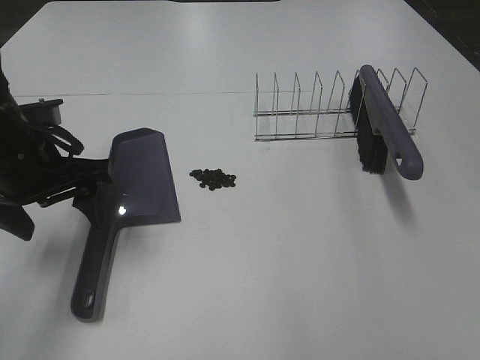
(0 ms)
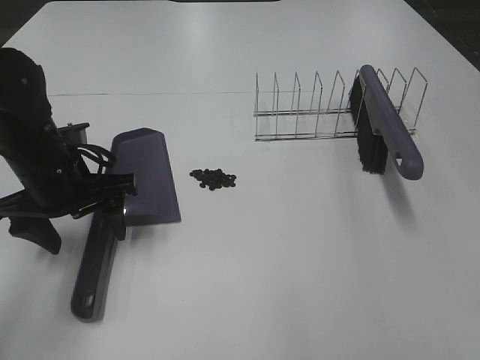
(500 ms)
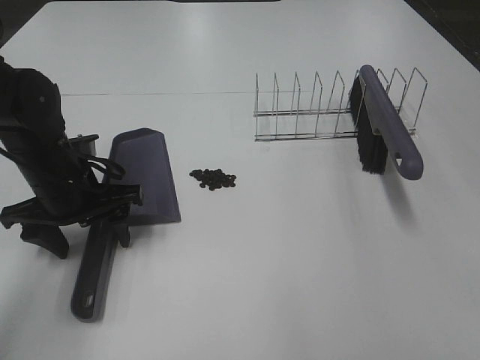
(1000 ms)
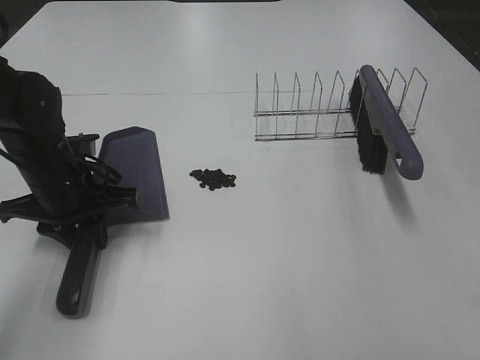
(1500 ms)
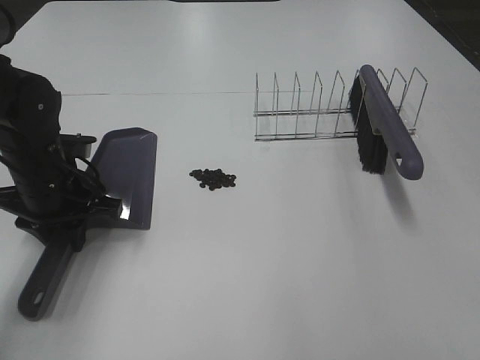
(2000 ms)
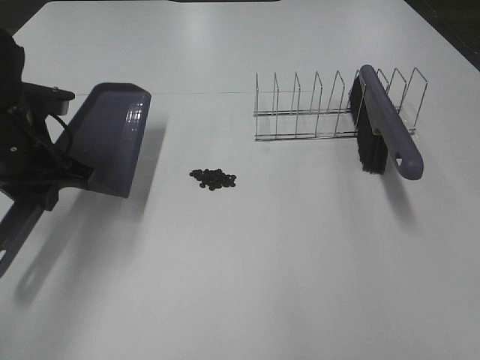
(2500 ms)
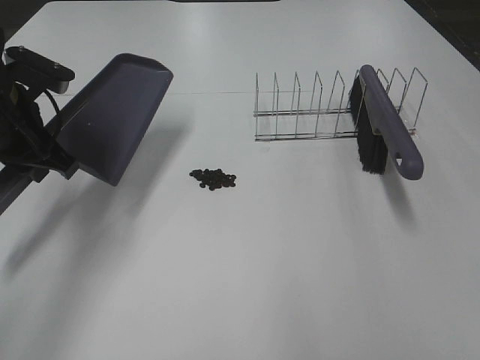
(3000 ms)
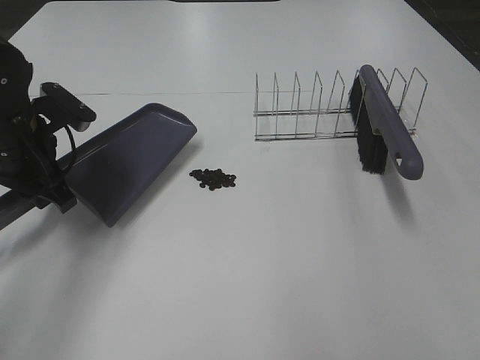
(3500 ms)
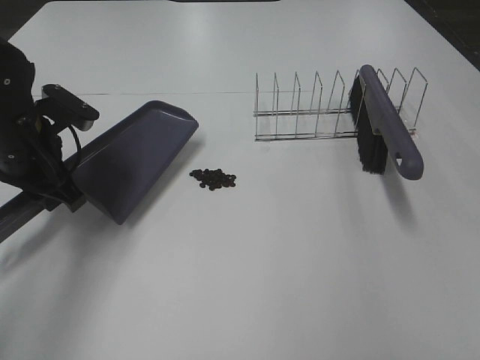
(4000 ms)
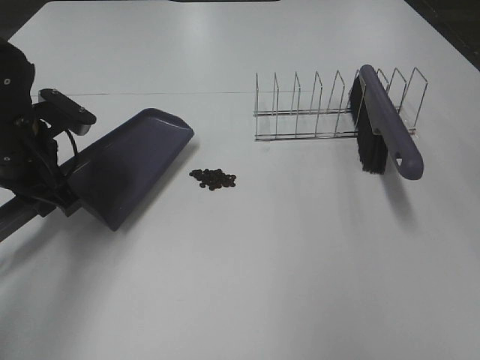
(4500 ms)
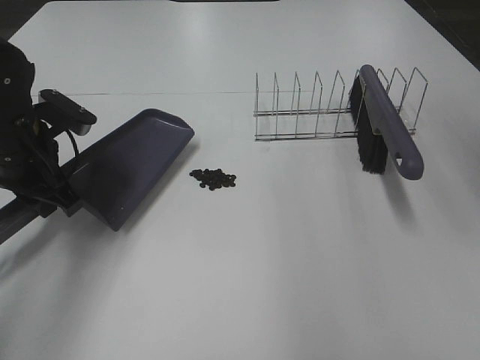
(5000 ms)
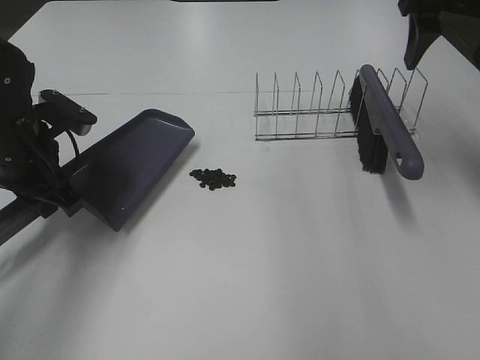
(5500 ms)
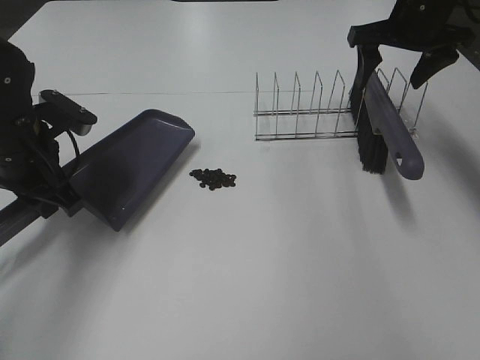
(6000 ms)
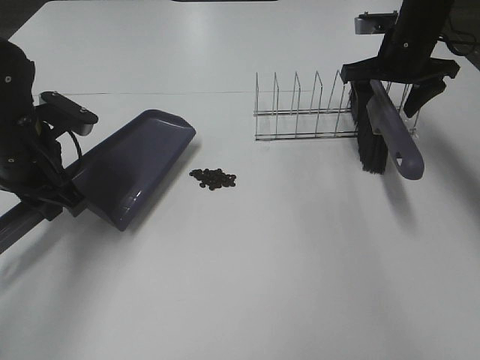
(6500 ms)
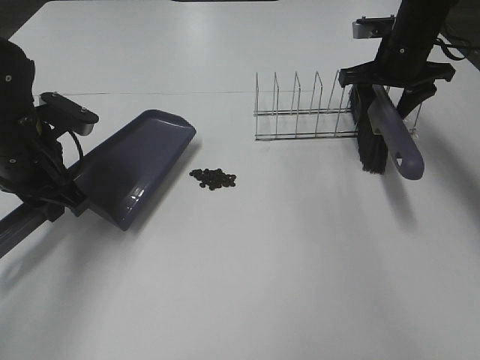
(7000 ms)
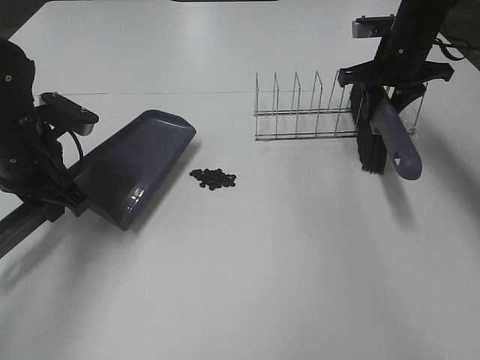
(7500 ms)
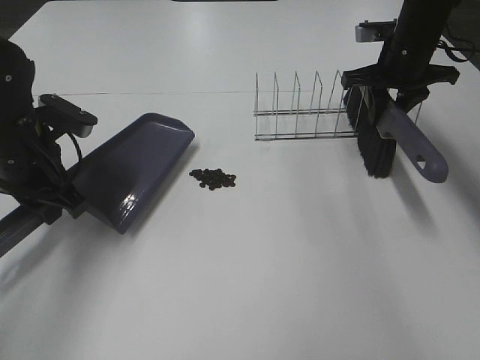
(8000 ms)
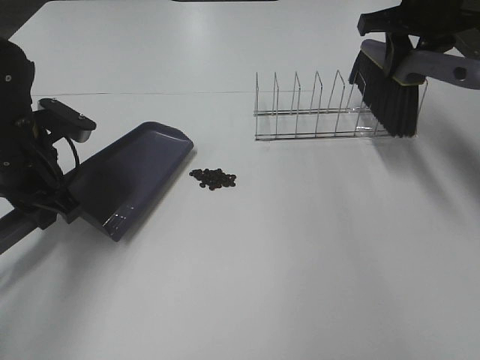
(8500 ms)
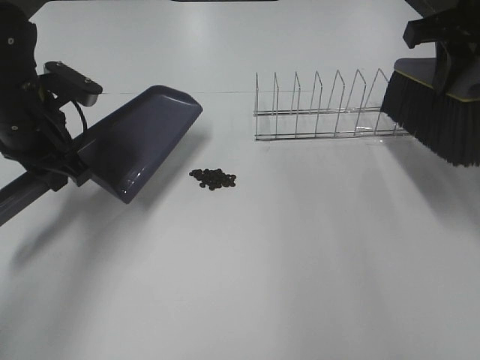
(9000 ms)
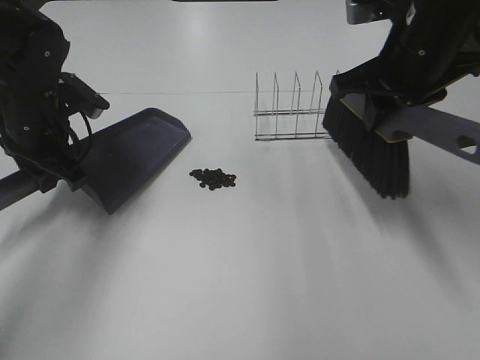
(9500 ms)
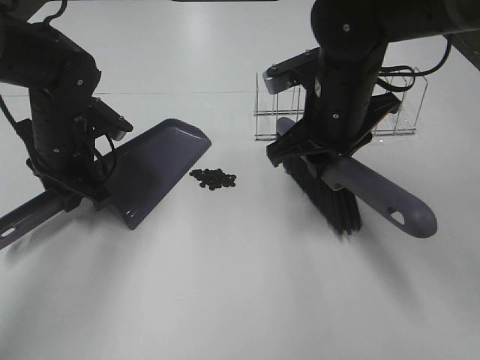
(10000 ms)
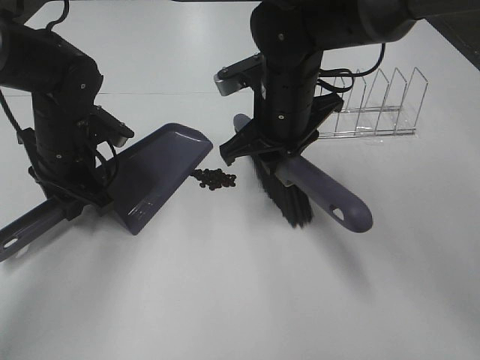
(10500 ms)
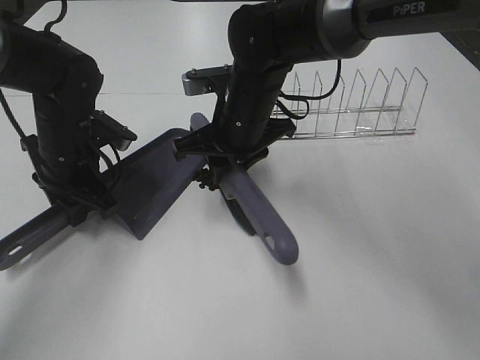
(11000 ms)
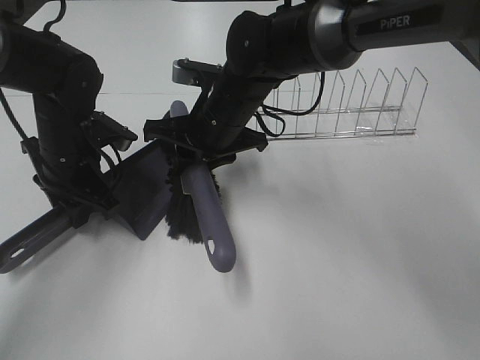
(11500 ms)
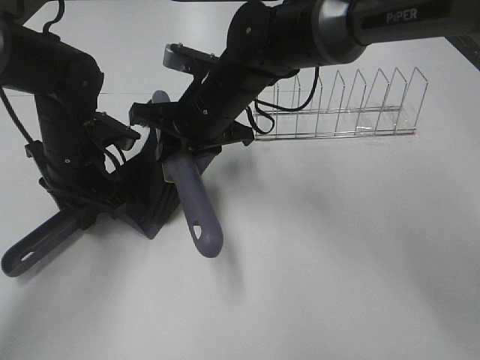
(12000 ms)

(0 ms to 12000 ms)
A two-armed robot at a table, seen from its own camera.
Task of the whole recording: Sweep Coffee Bean.
Step, 2000 ms - 9500 ms: Left hand: move the dustpan to the left side of the coffee beans.
Step, 3000 ms - 7500 ms: Right hand:grab the broom.
0 ms - 2000 ms: The left gripper is displaced downward by approximately 5 cm, and closes.
2000 ms - 4000 ms: The right gripper moves upward and forward, some 10 cm.
4000 ms - 6000 ms: The right gripper is displaced forward by approximately 40 cm.
6000 ms - 8000 ms: The right gripper is displaced downward by about 5 cm, and closes up.
8000 ms - 10000 ms: The right gripper travels backward and to the left by approximately 20 cm. The left gripper changes place by approximately 5 cm.
10000 ms - 12000 ms: The right gripper travels to the left by about 10 cm.

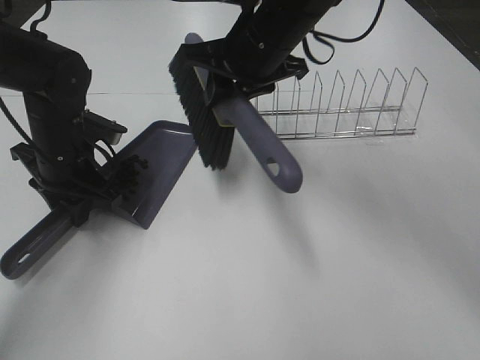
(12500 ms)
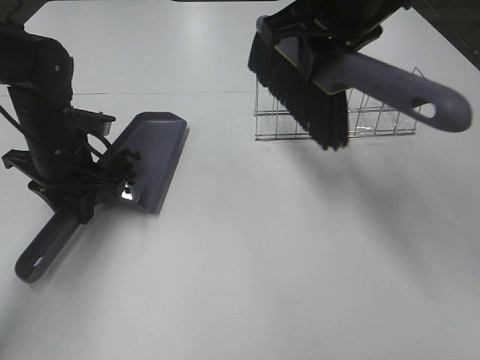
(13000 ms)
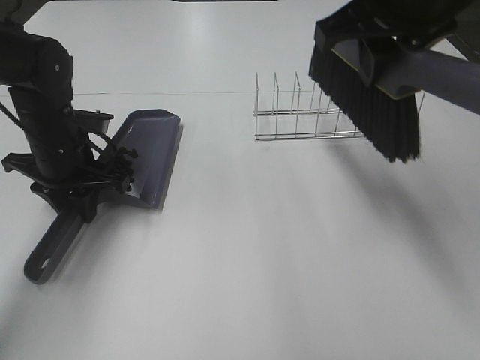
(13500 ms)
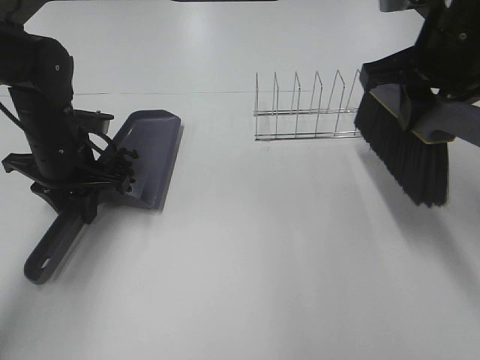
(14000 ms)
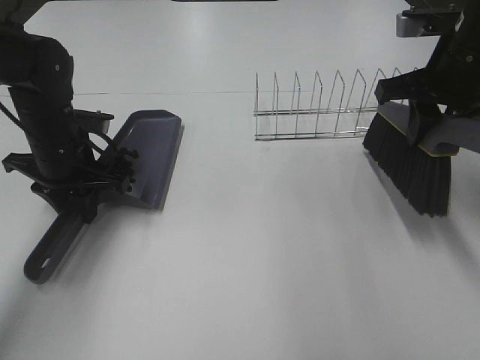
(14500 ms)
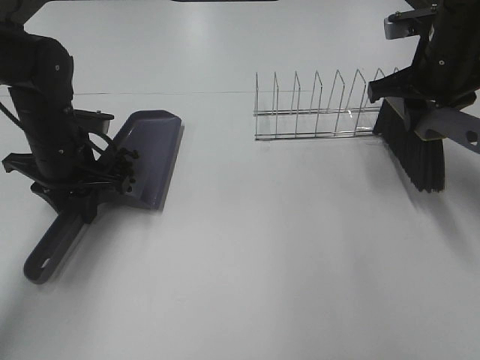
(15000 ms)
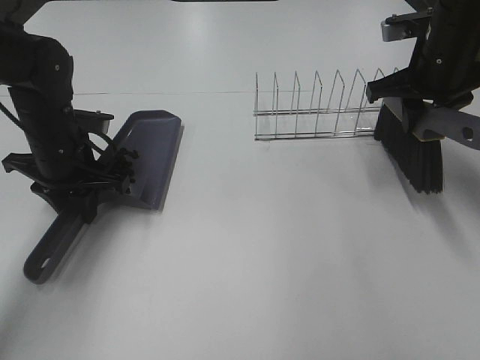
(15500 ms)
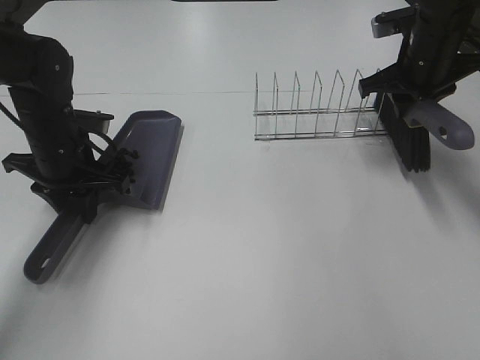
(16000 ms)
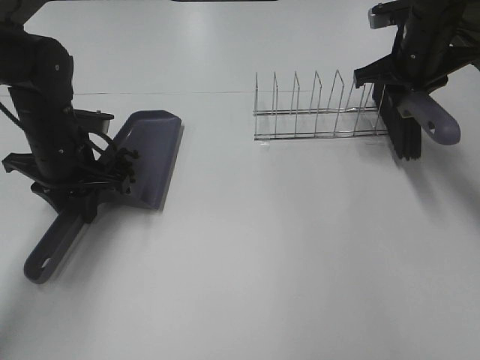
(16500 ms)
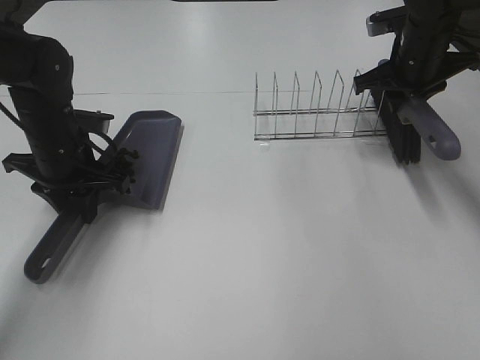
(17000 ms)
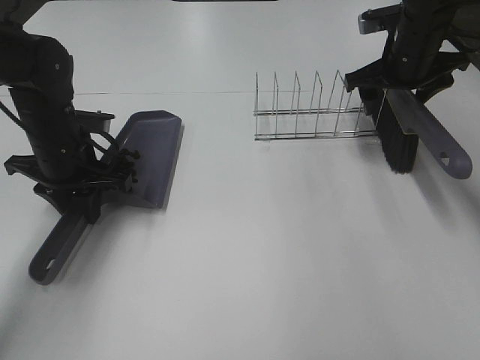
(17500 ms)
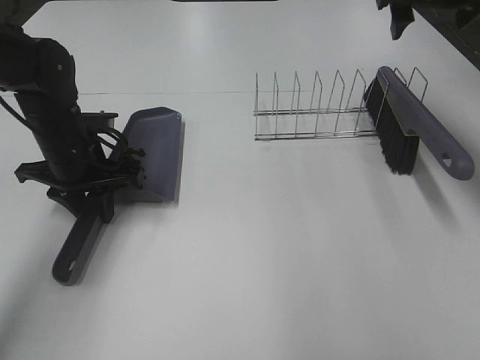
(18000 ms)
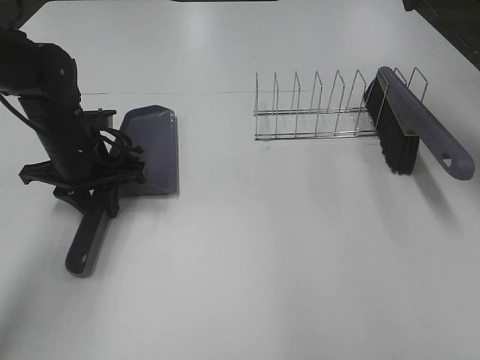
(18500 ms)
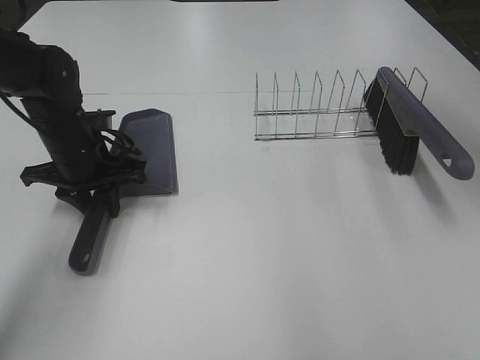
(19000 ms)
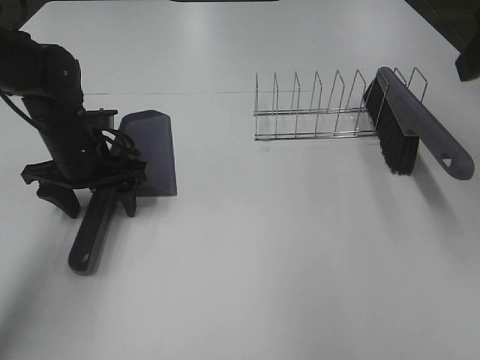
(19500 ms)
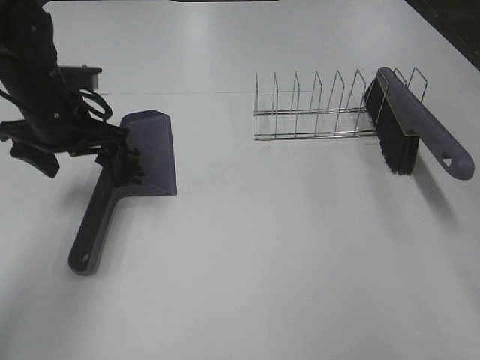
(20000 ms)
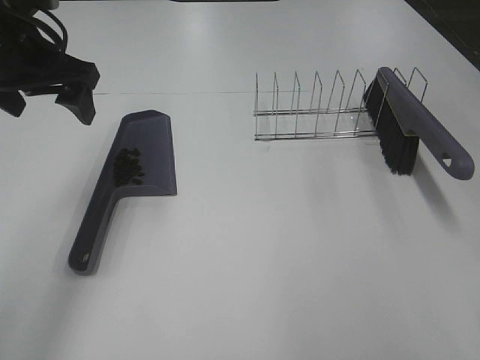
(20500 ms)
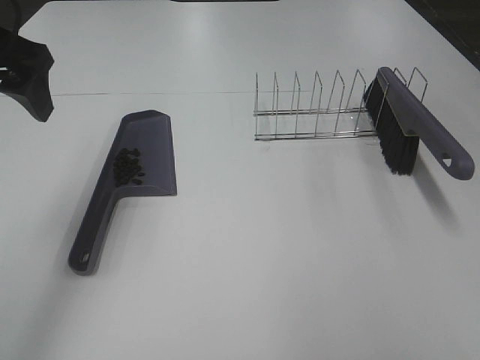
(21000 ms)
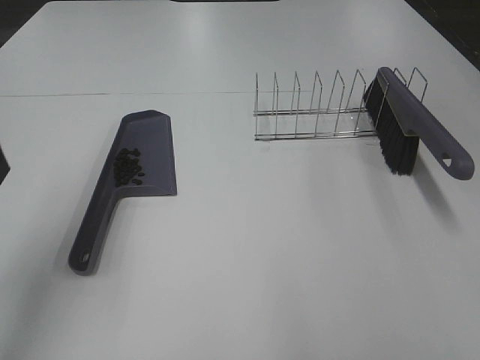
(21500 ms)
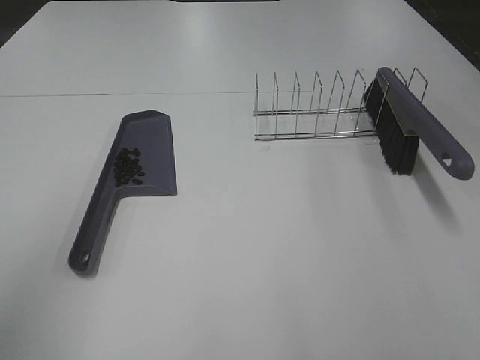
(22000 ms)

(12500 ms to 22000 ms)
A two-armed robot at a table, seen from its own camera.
Task of the whole recording: Sweep Coffee Bean.
Step, 12500 ms - 17500 ms: Right hand:place the broom on the rack.
12500 ms - 14500 ms: The right gripper moves to the right, roughly 20 cm.
14500 ms - 16500 ms: The right gripper shifts about 10 cm forward and downward.
16500 ms - 18000 ms: The right gripper shifts about 10 cm upward, and opens up.
18000 ms - 20000 ms: The left gripper moves upward, roughly 5 cm, and opens; the right gripper moves backward, roughly 30 cm.
20000 ms - 22000 ms: The left gripper is displaced backward and upward by roughly 30 cm.

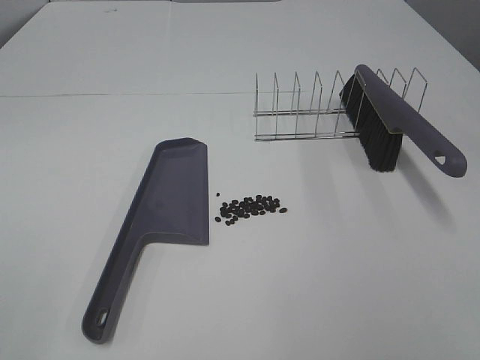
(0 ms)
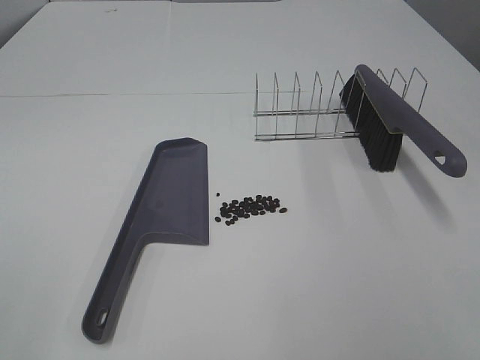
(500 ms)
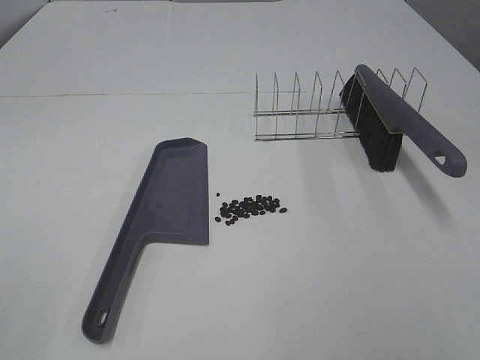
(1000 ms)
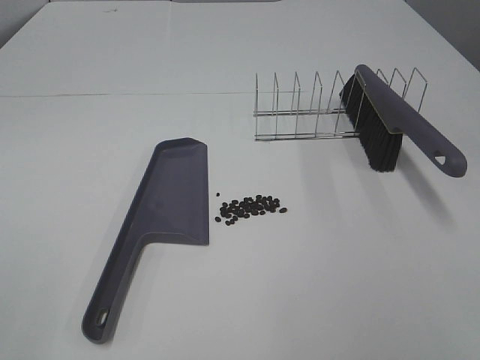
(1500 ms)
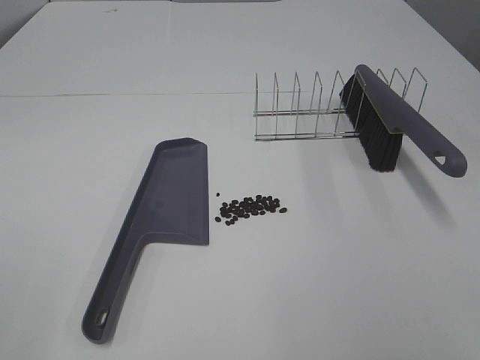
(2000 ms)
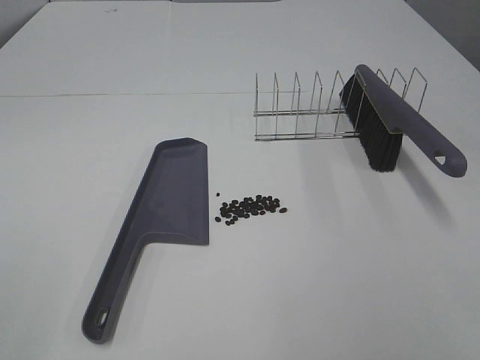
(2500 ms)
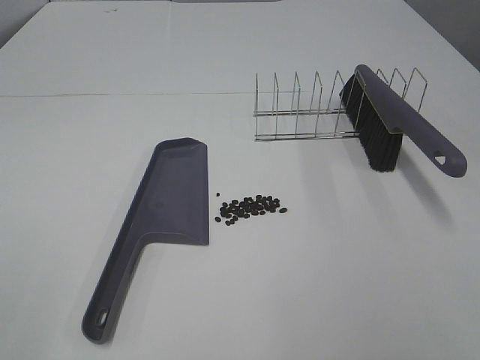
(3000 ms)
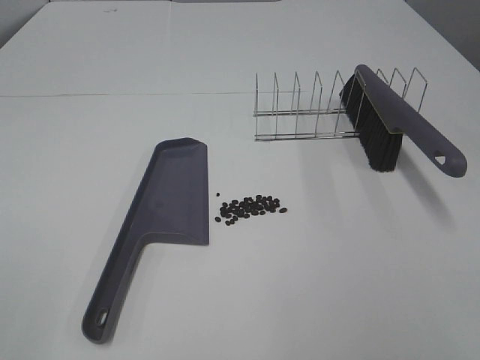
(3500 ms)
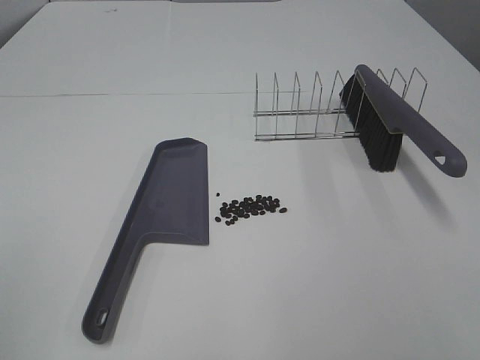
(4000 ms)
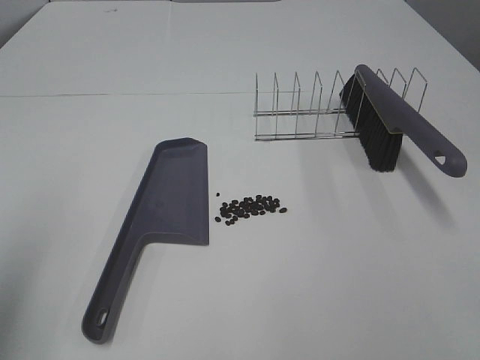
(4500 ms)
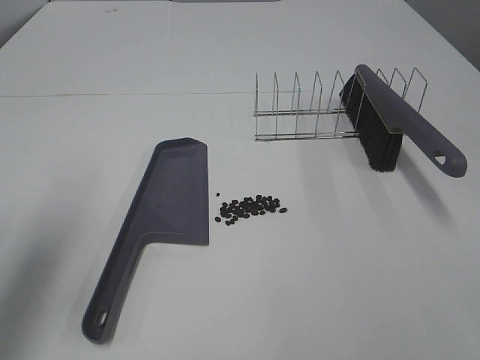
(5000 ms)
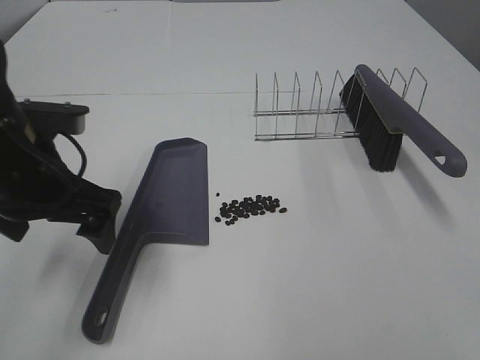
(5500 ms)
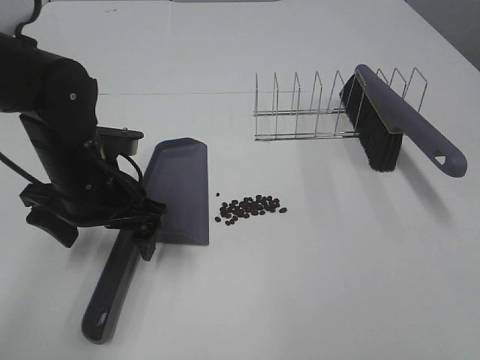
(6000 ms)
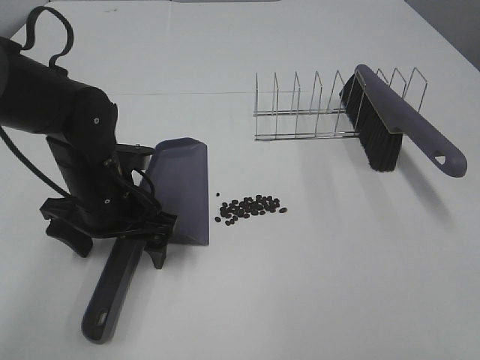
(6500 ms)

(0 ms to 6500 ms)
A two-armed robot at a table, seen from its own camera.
Task of the whole recording: Sweep Coffee Bean.
0 ms - 2000 ms: Neither gripper changes place.
2000 ms - 4500 ms: The left gripper moves forward, roughly 15 cm.
4500 ms - 6500 ms: The left gripper travels downward, to the right and forward by approximately 30 cm.
